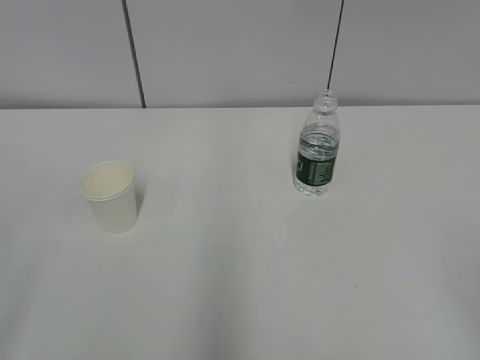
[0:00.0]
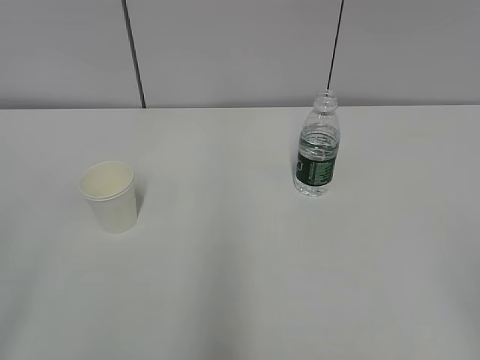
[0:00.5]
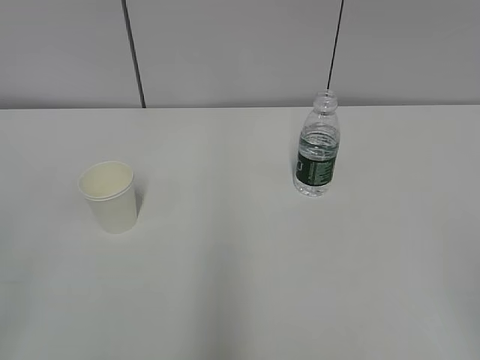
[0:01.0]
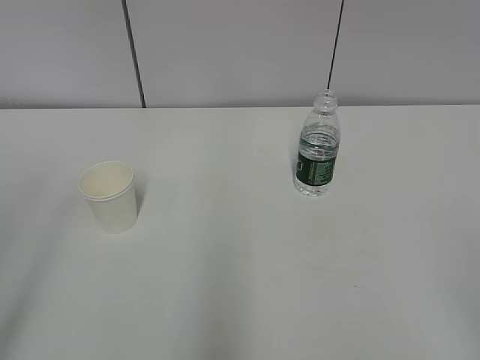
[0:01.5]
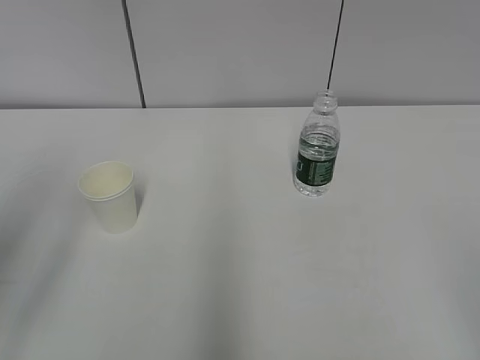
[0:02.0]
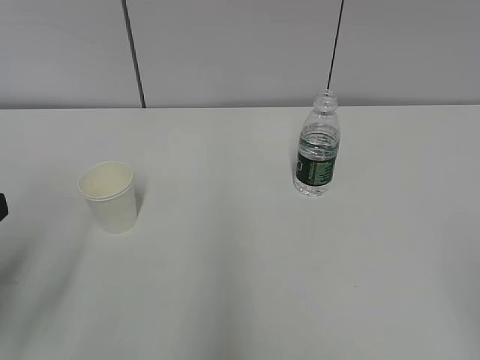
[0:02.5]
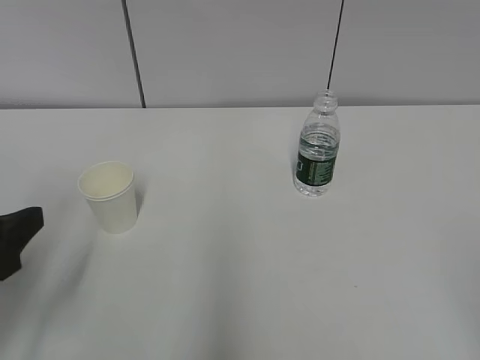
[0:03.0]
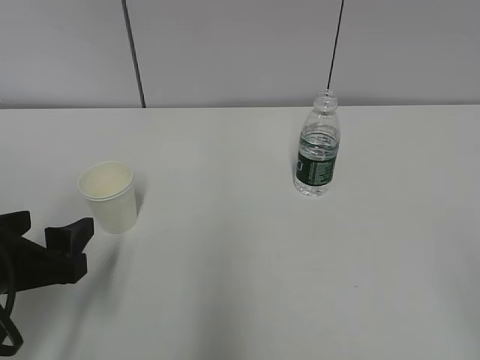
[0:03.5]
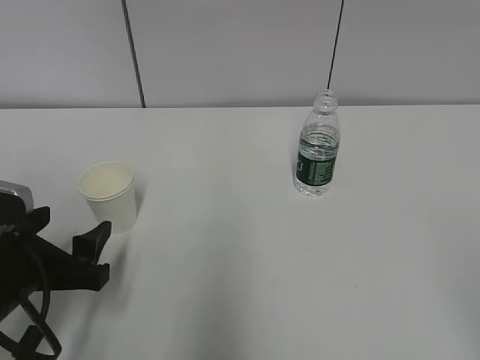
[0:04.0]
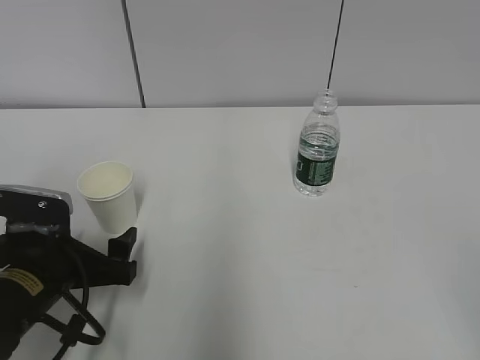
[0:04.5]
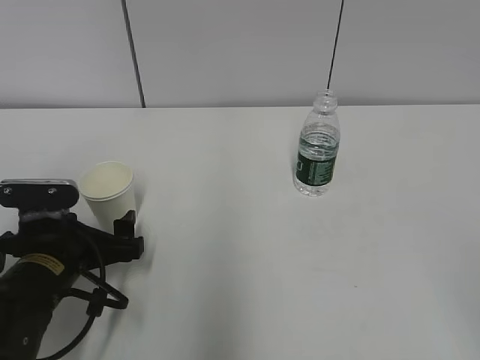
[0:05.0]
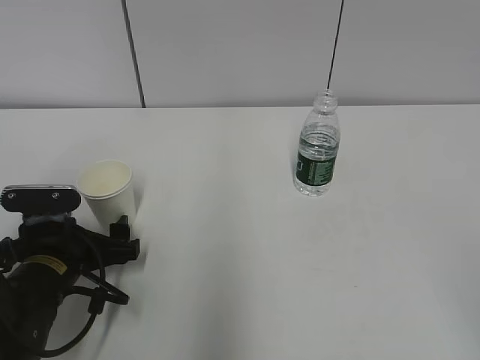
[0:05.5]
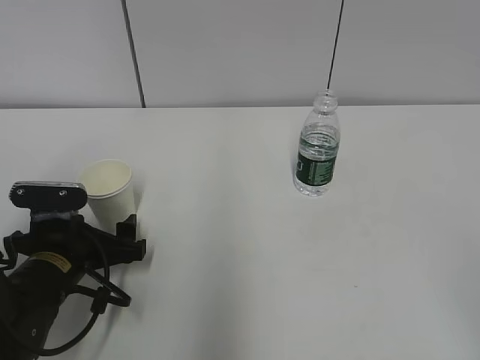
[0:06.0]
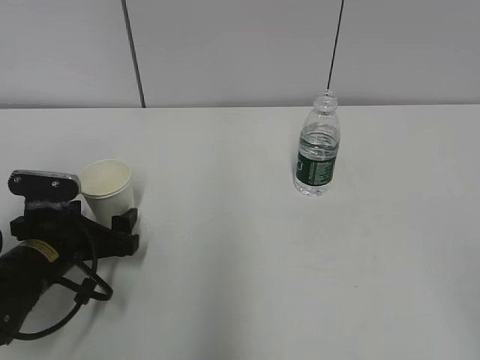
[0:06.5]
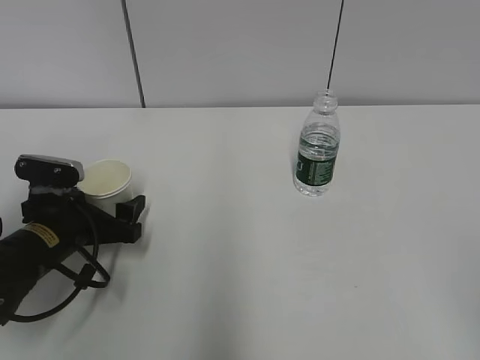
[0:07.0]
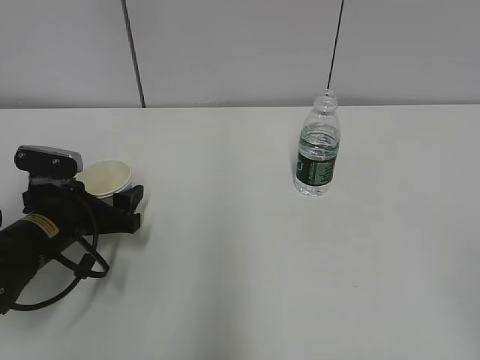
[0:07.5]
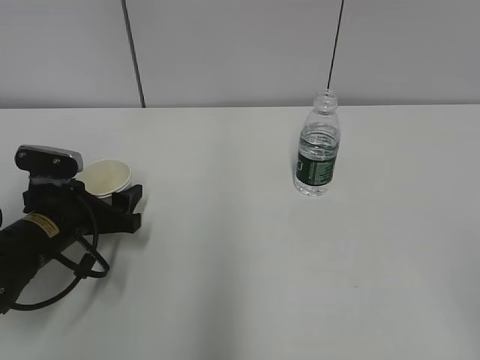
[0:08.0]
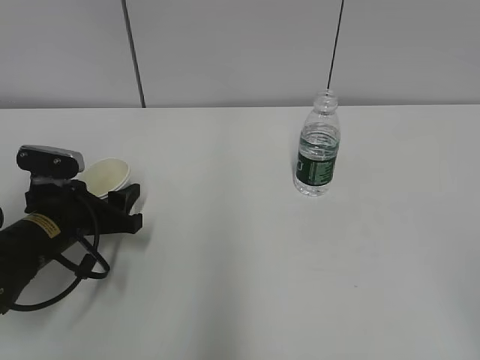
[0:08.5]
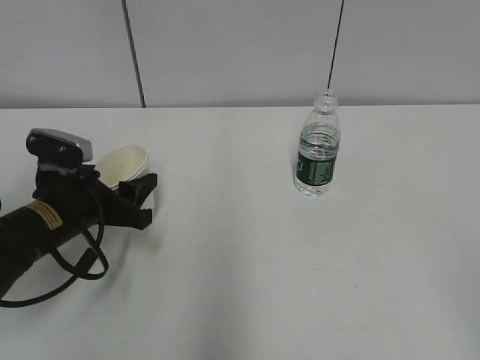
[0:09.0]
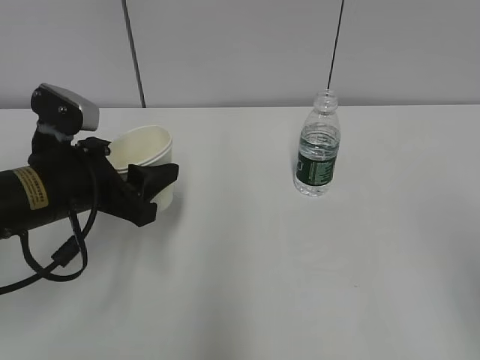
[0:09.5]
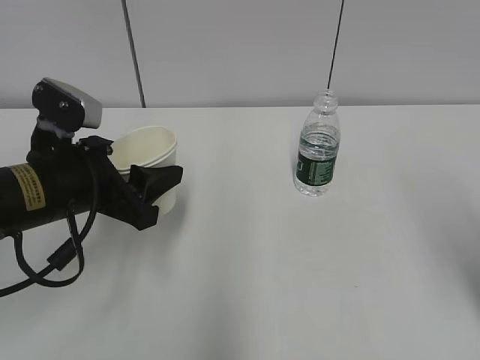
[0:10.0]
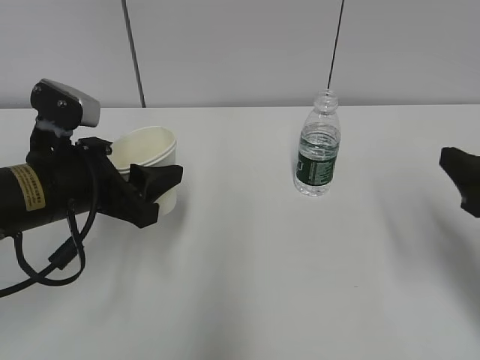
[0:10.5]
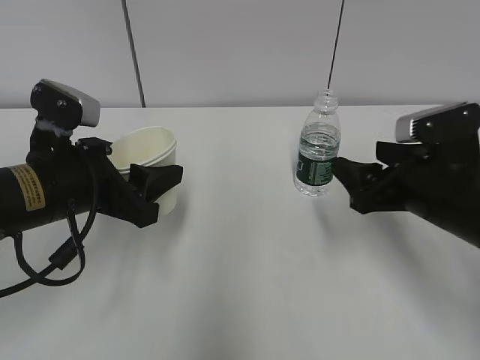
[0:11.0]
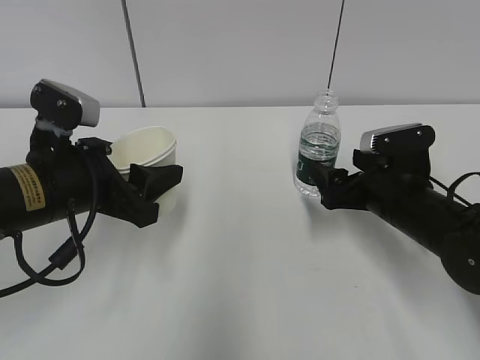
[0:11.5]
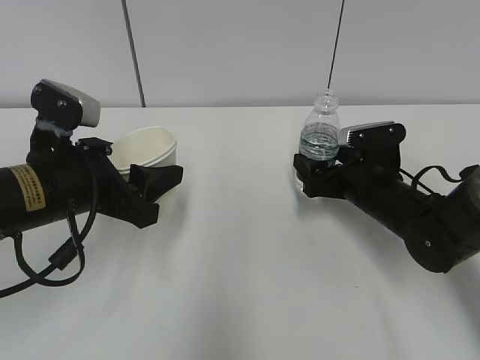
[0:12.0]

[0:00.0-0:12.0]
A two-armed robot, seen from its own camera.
Step, 0:00.0 to 0:07.0: Grab the paper cup with the left hand.
Step, 0:07.5 to 0:10.5: Grab the water bottle with the right hand.
0:02.0 to 0:04.0: The left gripper travels downward by some 20 cm.
0:04.0 to 0:06.0: The left gripper is displaced forward and downward by about 10 cm.
0:06.0 to 0:08.0: The left gripper shifts by some 5 cm.
0:08.0 to 0:10.0: The right gripper shifts about 15 cm forward. Meanwhile the left gripper travels upward by approximately 10 cm, and closes its fingers.
0:10.0 to 0:12.0: The right gripper goes about 30 cm forward, downward and to the left, and opens up.

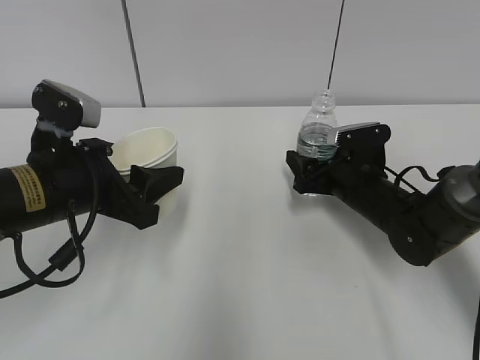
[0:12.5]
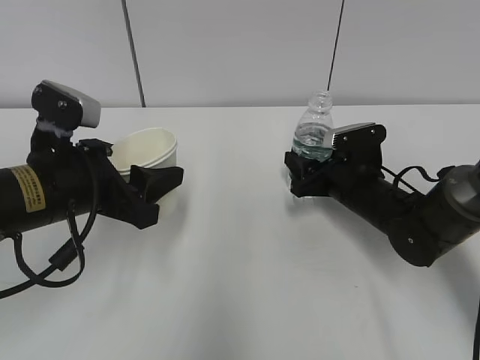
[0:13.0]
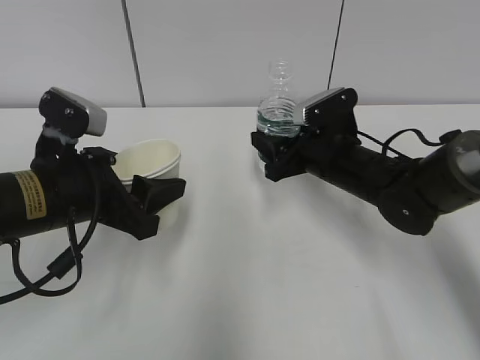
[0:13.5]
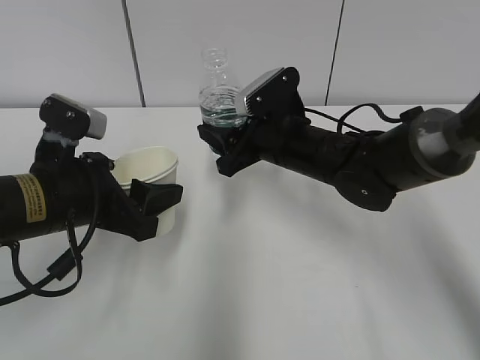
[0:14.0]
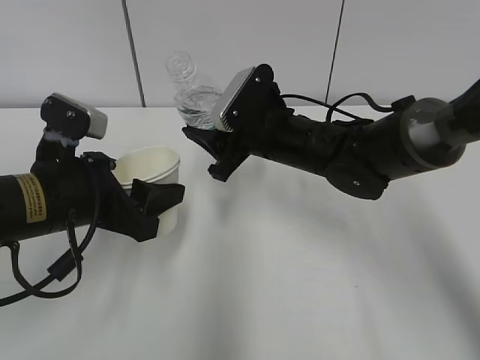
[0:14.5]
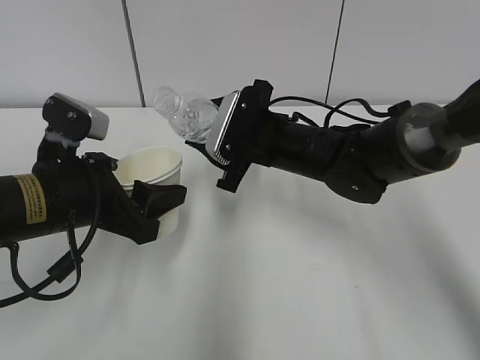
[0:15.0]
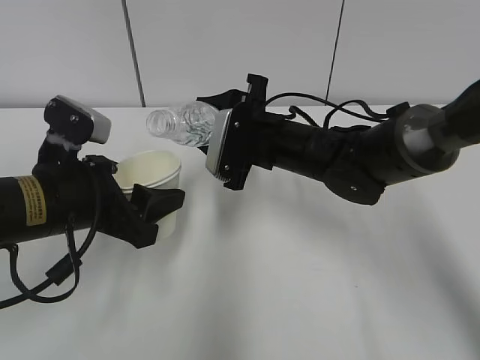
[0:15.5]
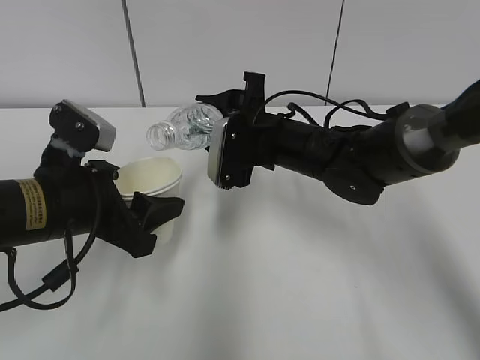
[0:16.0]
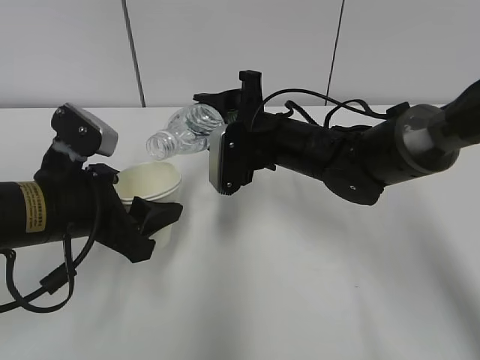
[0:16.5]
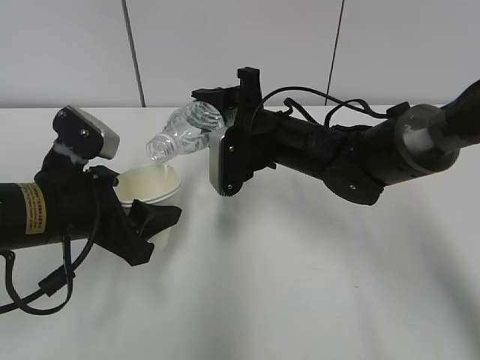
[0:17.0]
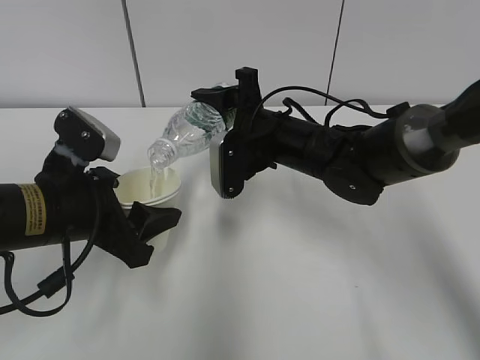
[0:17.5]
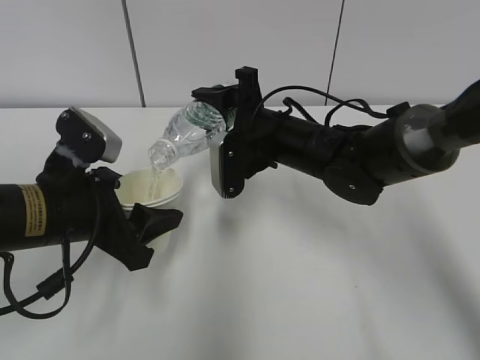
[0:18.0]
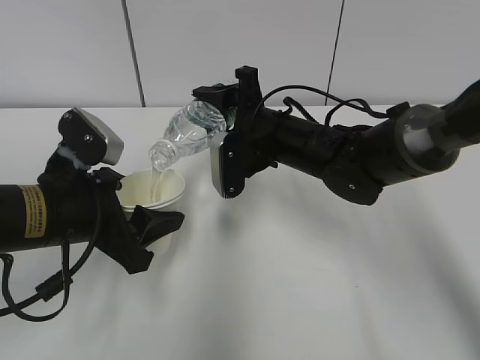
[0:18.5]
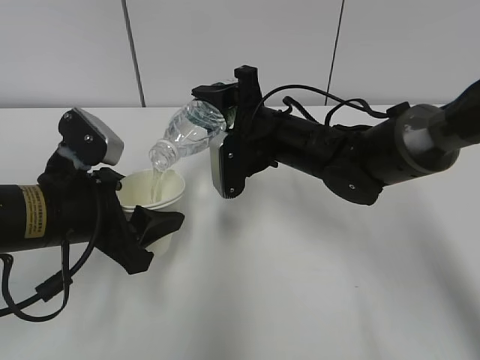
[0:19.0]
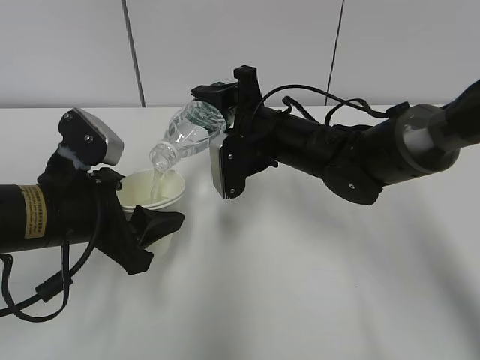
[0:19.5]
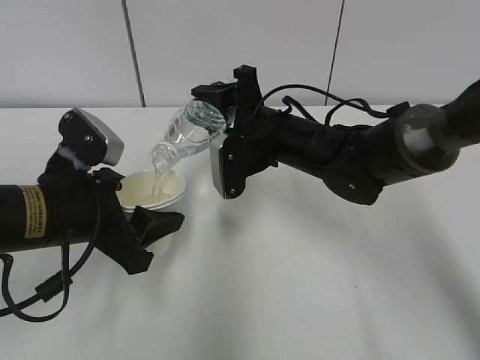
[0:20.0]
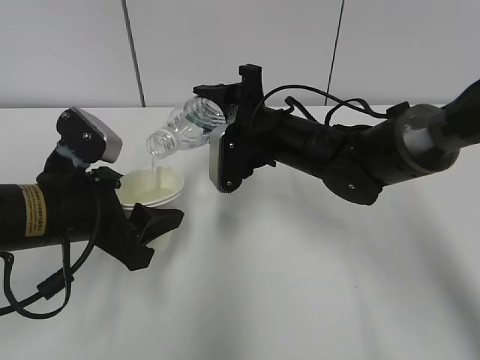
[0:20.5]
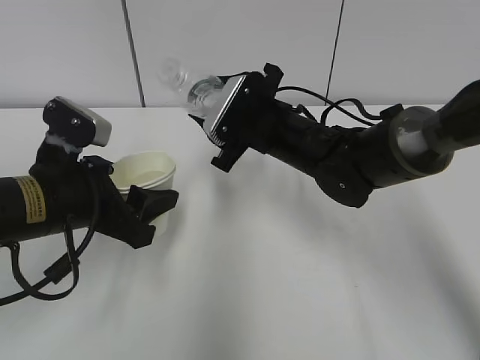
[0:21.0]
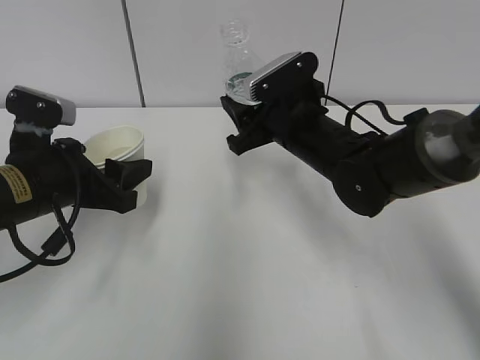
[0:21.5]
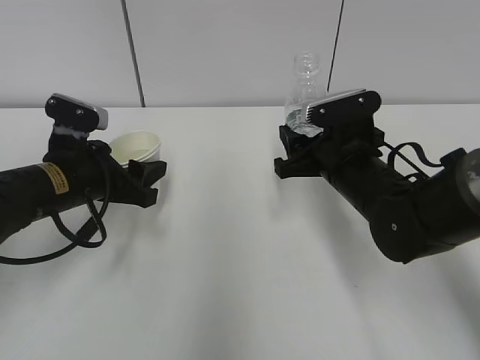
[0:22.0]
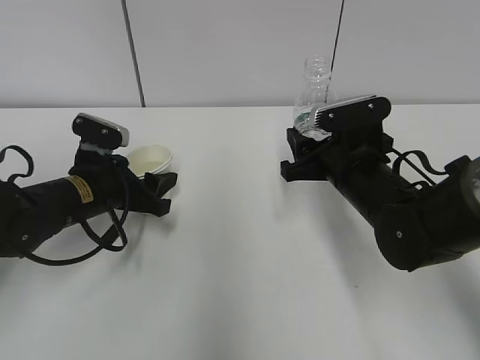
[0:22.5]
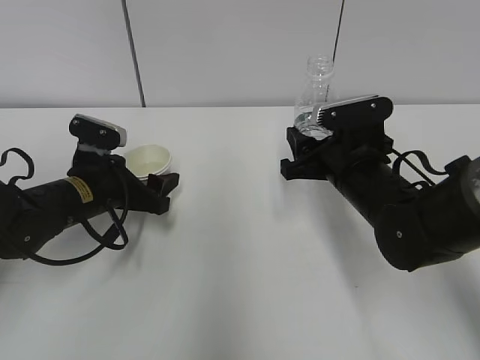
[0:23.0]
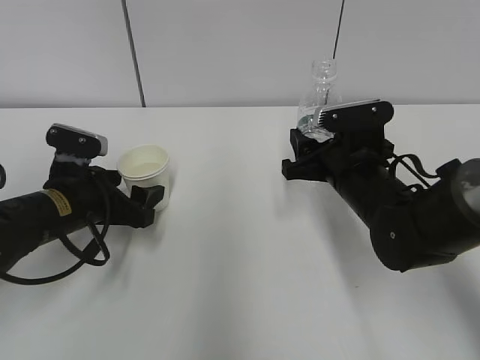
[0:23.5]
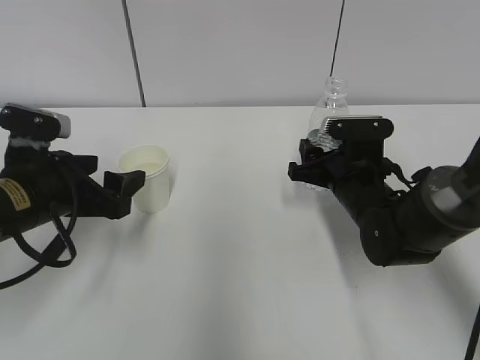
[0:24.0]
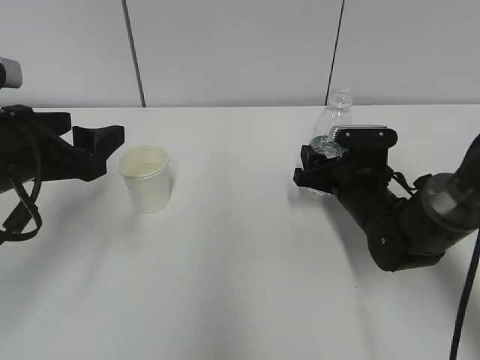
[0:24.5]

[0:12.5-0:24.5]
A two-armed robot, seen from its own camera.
Step, 0:14.5 to 0:17.0: Fill water with the left hand.
Step, 0:14.5 to 0:17.0: Pour water with the right hand.
Step, 0:17.5 to 0:18.5: Collect water with the right hand.
Step, 0:19.5 to 0:20.5: Place the water bottle with the right hand.
0:12.5 to 0:14.5: The right gripper moves to the left and upward, roughly 15 cm, and closes its fingers.
0:16.5 to 0:20.5: The grippers make only small movements.
0:20.5 to 0:22.5: The left gripper moves forward and downward, roughly 10 cm. Meanwhile the right gripper moves to the right and backward, about 10 cm.
0:22.5 to 0:24.5: The right gripper heads downward, covering about 5 cm. Meanwhile the left gripper heads upward and backward, covering some 15 cm, and opens.

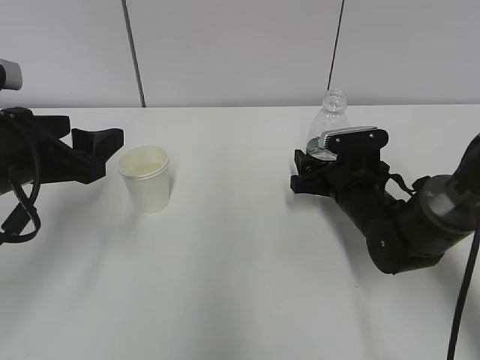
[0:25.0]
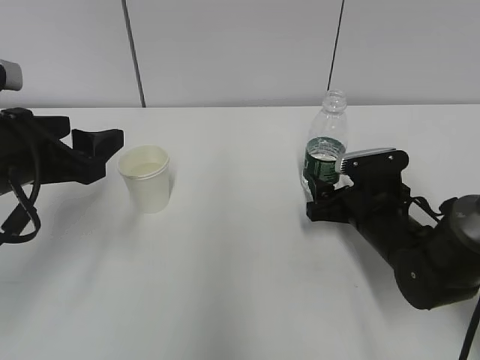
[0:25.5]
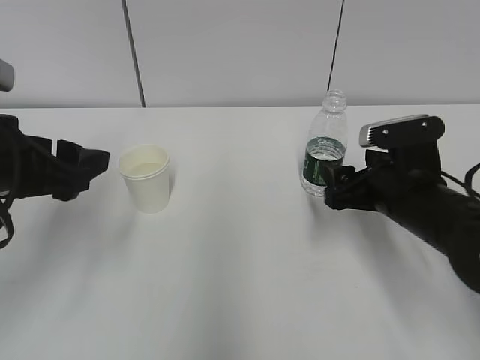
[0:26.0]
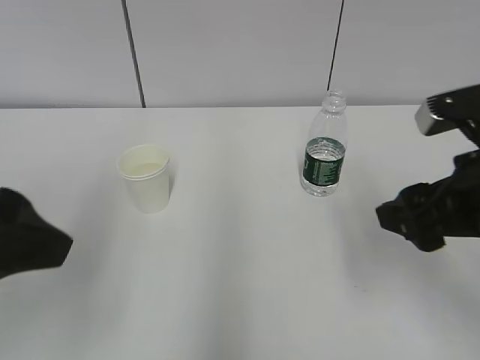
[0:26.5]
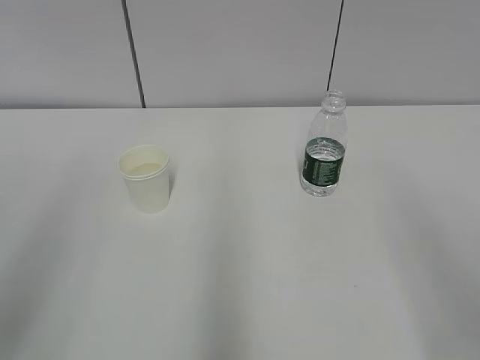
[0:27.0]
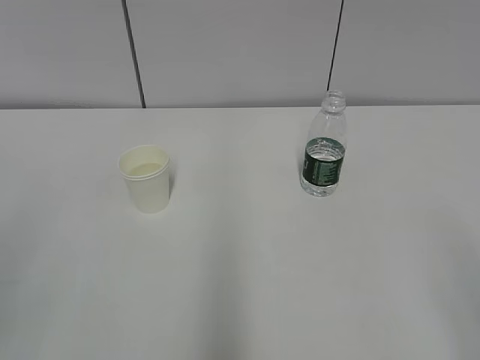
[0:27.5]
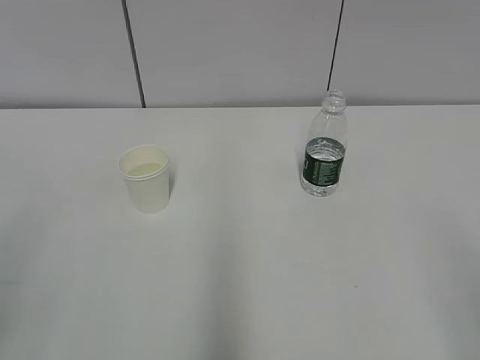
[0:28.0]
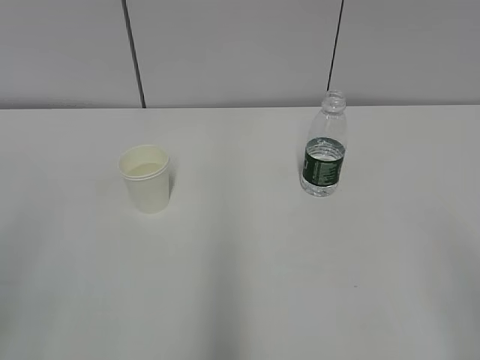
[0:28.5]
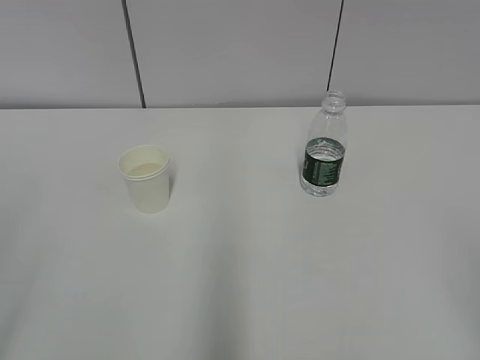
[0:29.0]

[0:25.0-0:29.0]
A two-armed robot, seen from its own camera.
0:25.0 to 0:27.0: The right gripper shifts approximately 40 cm backward and upward. The left gripper goes some 25 cm backward and upward.
